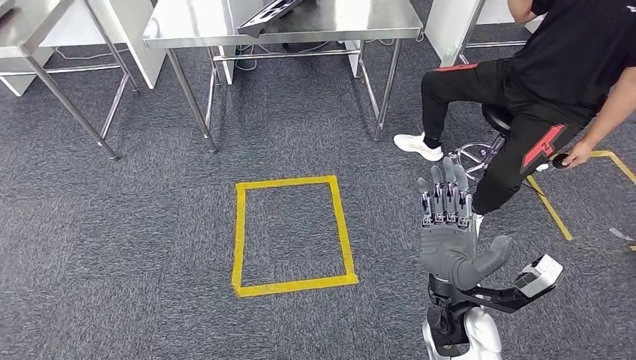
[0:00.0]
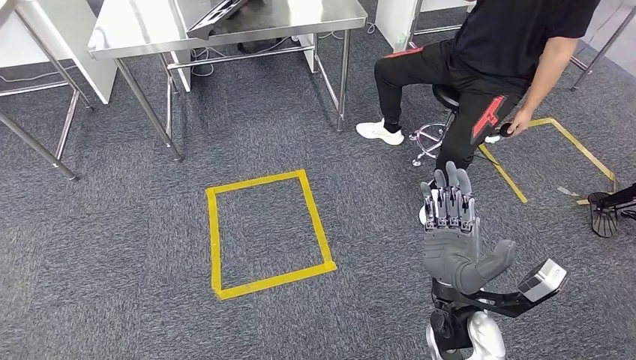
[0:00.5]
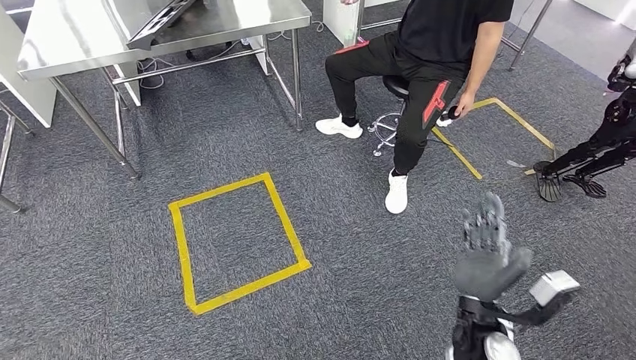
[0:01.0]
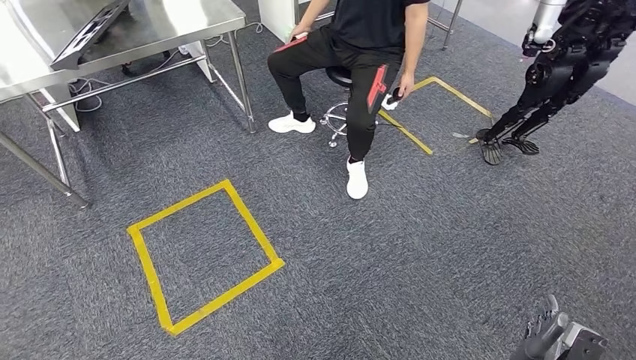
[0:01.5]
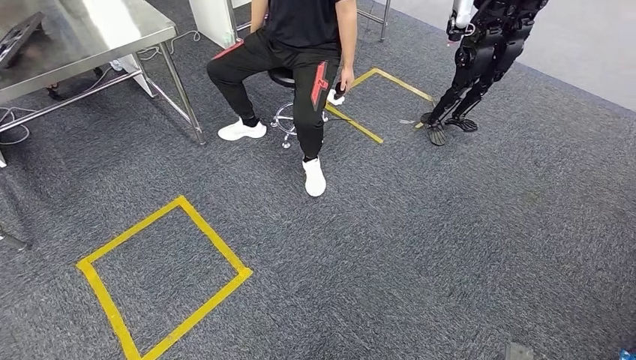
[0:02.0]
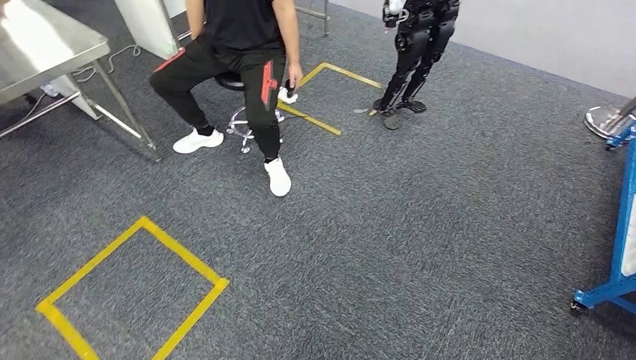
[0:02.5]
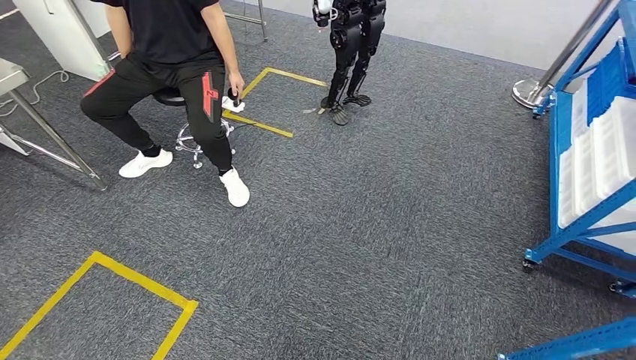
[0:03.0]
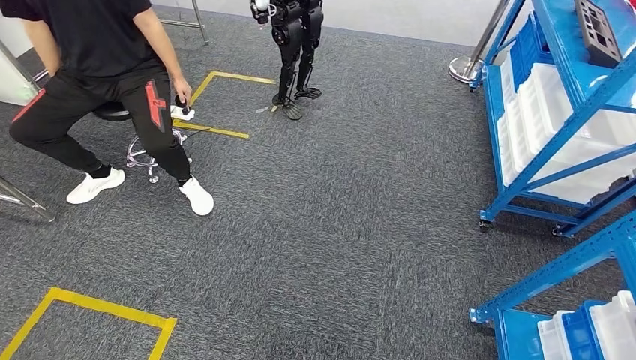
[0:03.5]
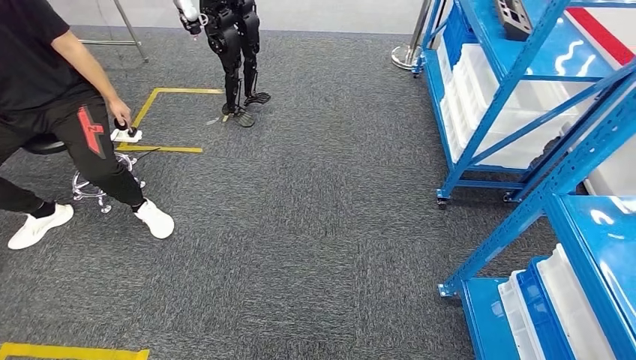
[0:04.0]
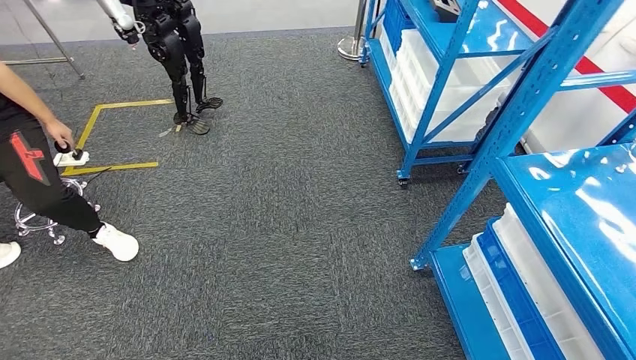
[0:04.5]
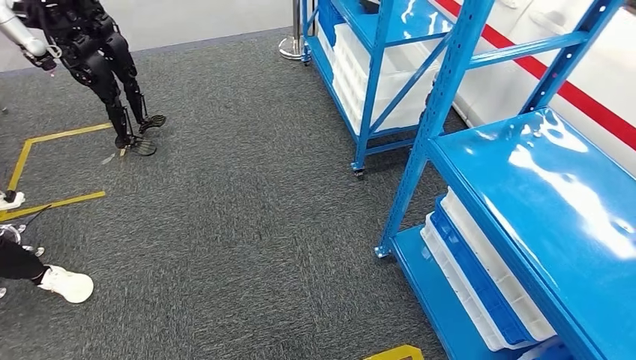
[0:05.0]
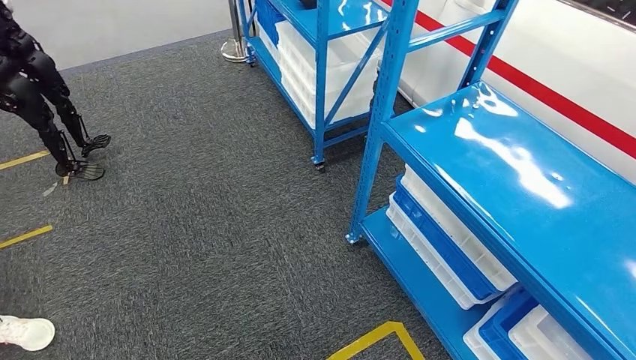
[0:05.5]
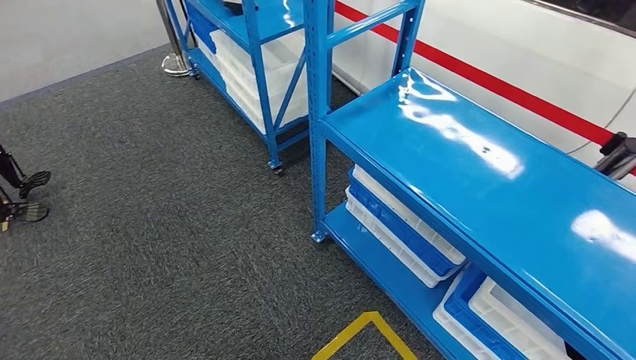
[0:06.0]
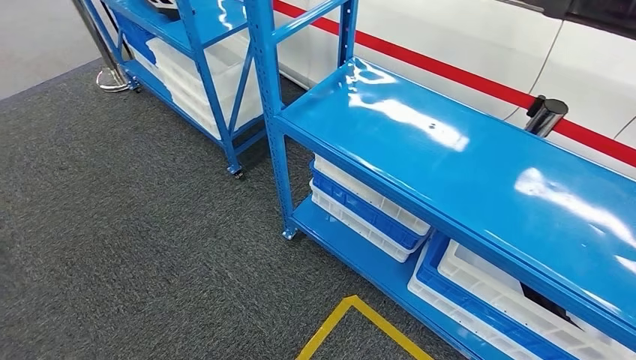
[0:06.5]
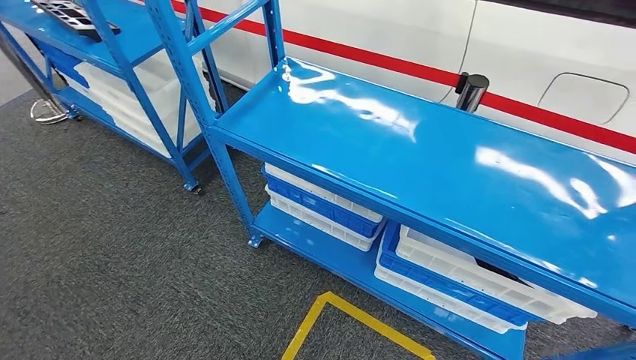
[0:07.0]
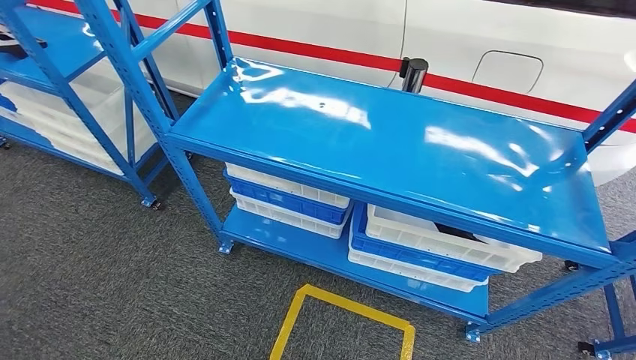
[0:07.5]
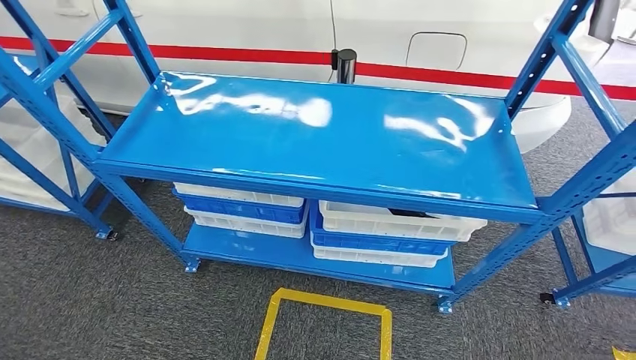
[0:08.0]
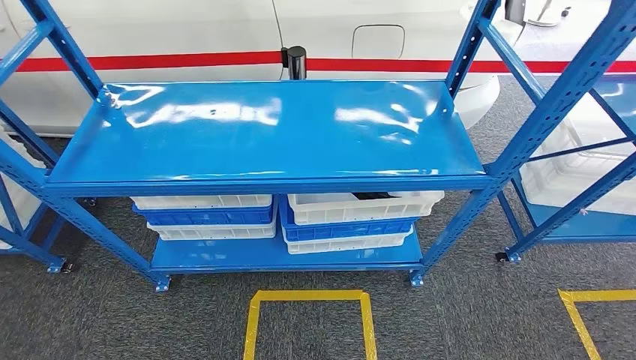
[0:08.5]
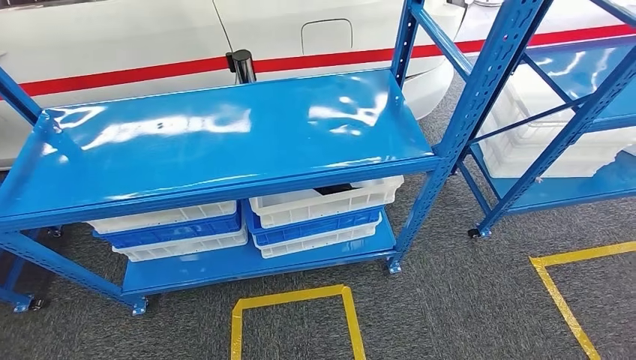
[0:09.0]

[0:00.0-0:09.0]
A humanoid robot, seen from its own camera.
Step, 0:00.0 to 0:09.0: Return to the initial position at the shelf.
